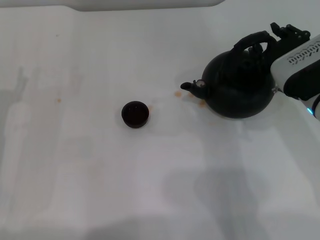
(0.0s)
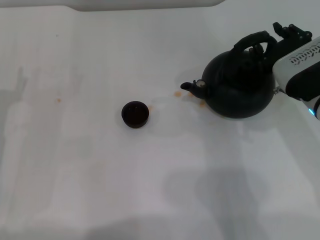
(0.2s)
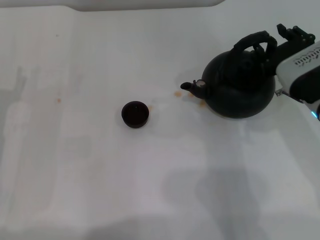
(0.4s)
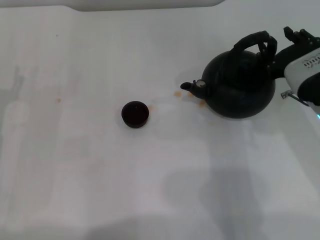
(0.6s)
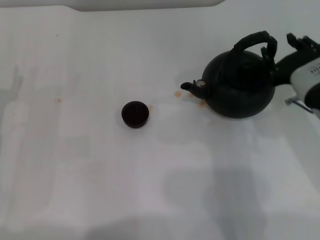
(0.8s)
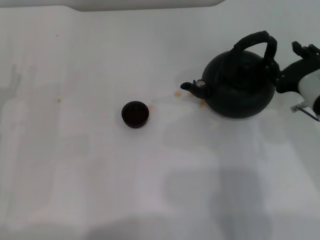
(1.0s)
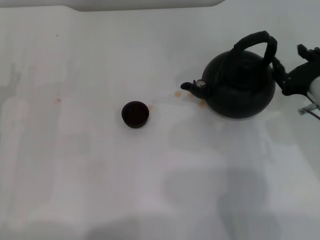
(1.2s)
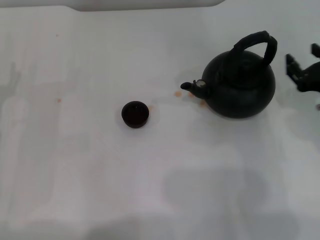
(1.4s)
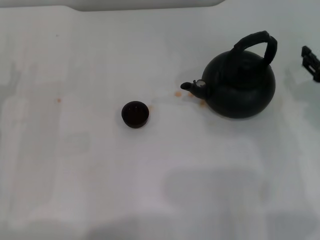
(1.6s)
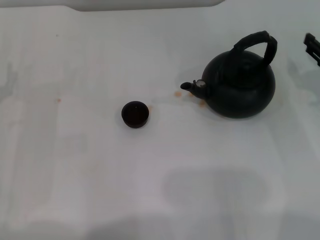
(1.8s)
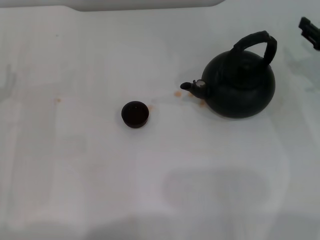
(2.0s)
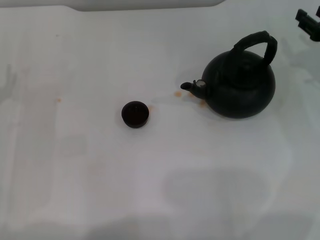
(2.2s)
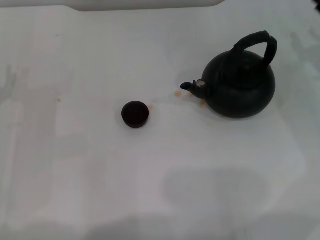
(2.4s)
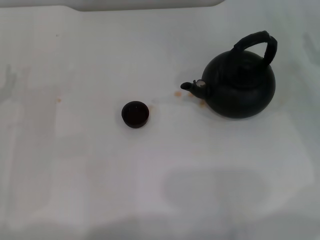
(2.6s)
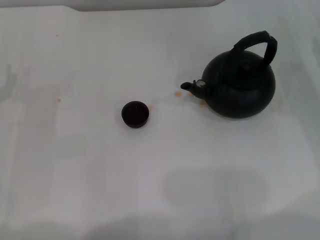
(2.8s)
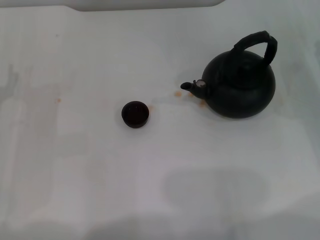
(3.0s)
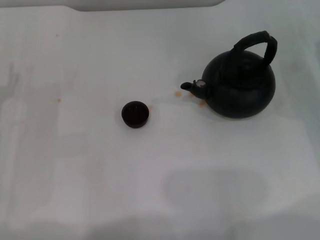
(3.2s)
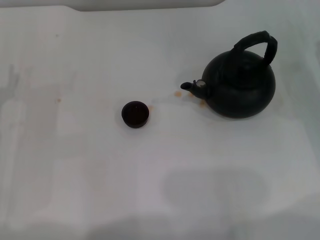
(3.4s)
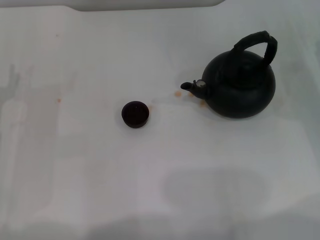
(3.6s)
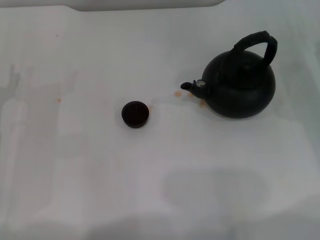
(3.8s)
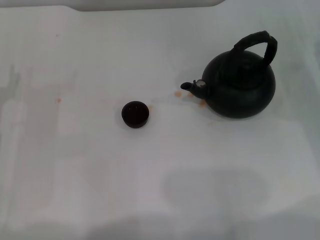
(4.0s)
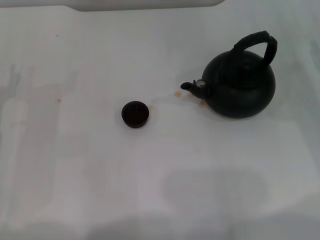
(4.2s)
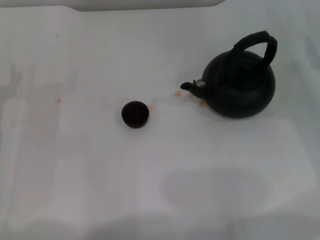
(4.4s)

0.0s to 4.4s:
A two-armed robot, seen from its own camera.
Task of the whole recording: Grasp the handle of the teapot with one hand and pour tea into the teacup.
0.0s to 1.4s: The right gripper shifts about 5 cm to the right.
1.4s to 3.0s: The right gripper heads to the right and forward, covering approximately 10 cm.

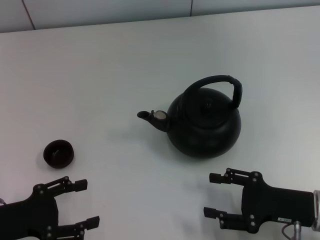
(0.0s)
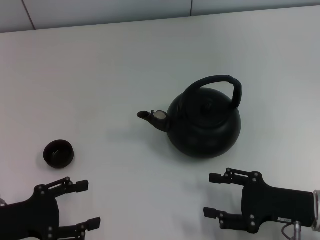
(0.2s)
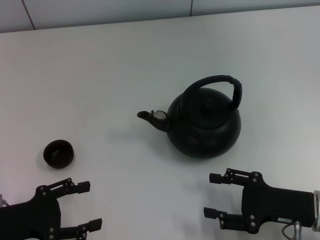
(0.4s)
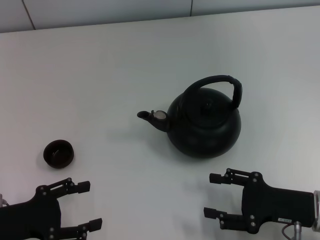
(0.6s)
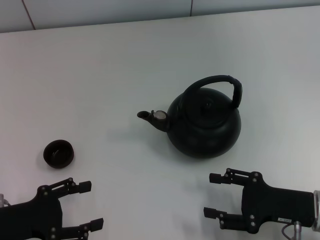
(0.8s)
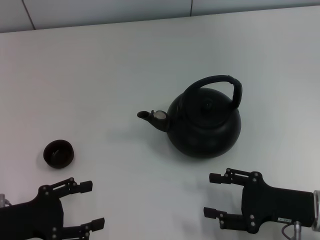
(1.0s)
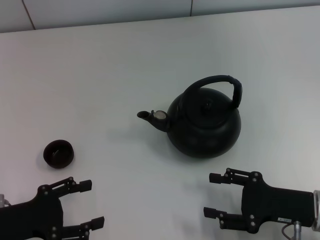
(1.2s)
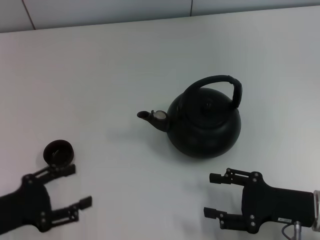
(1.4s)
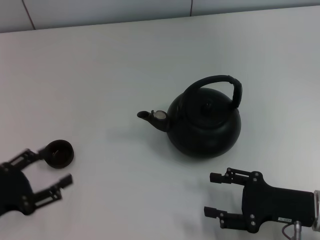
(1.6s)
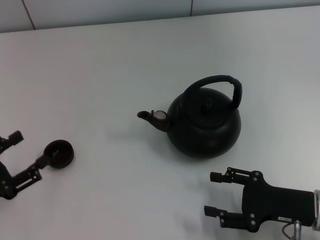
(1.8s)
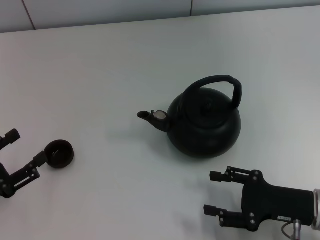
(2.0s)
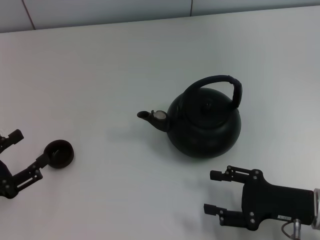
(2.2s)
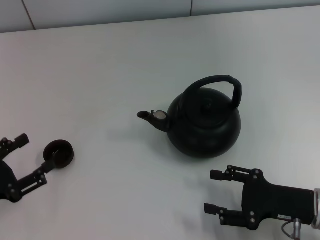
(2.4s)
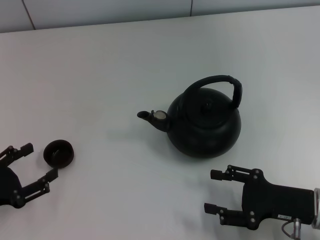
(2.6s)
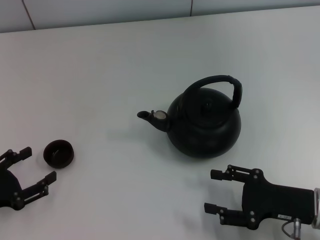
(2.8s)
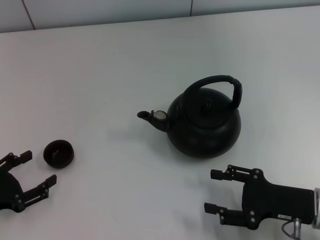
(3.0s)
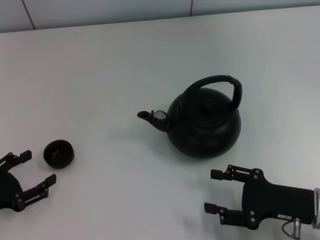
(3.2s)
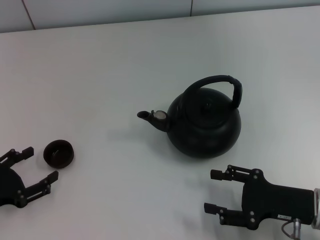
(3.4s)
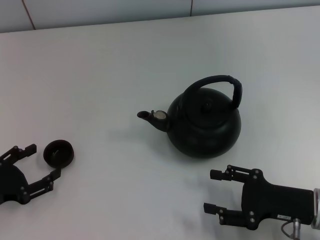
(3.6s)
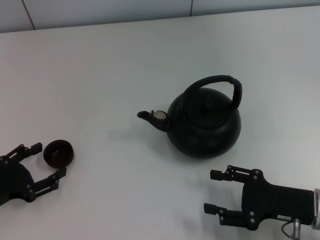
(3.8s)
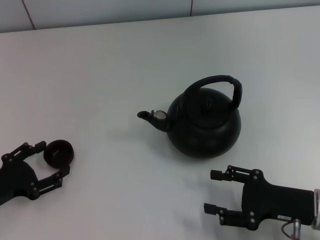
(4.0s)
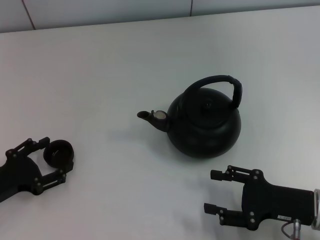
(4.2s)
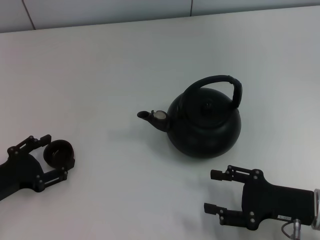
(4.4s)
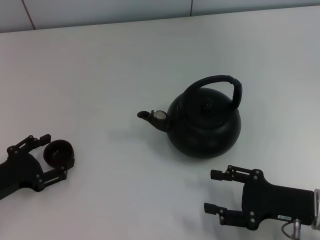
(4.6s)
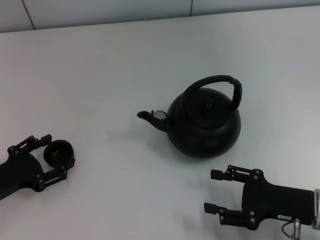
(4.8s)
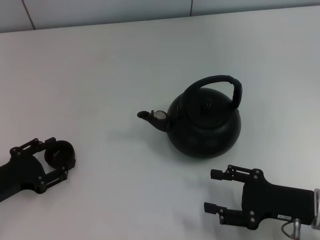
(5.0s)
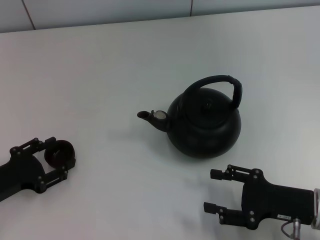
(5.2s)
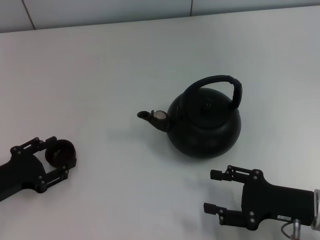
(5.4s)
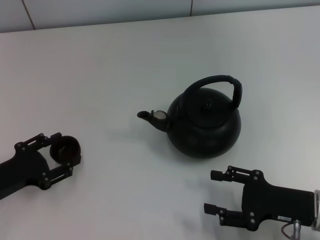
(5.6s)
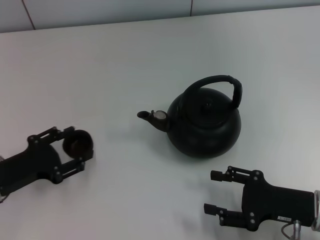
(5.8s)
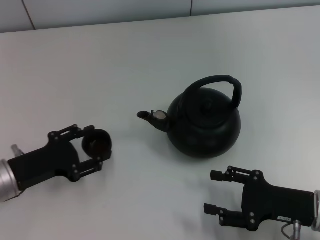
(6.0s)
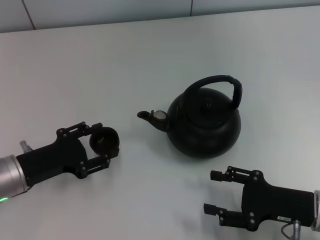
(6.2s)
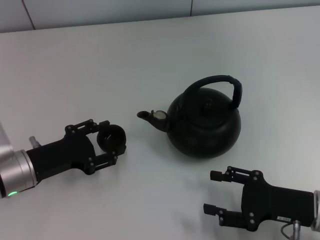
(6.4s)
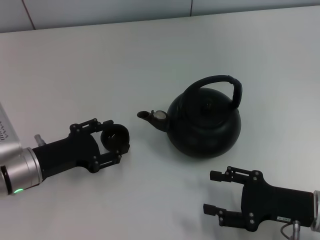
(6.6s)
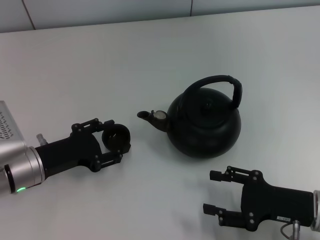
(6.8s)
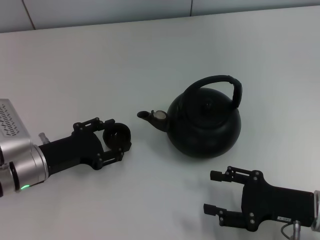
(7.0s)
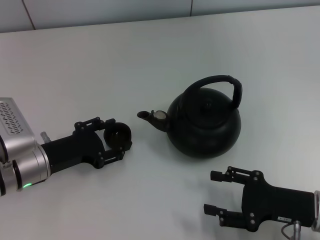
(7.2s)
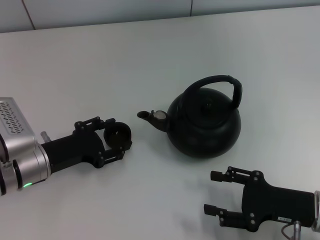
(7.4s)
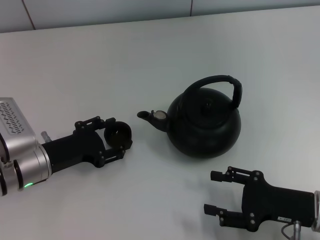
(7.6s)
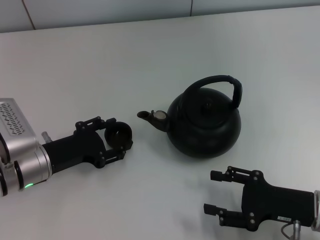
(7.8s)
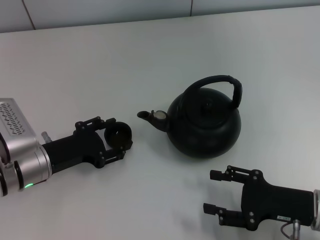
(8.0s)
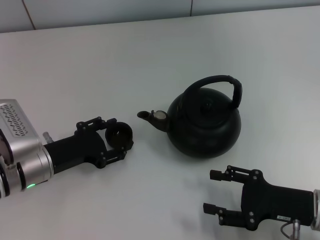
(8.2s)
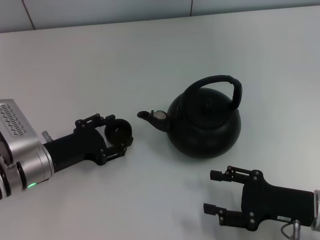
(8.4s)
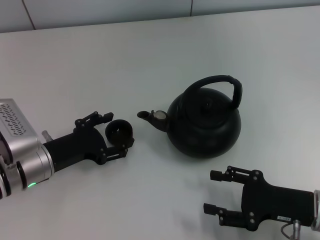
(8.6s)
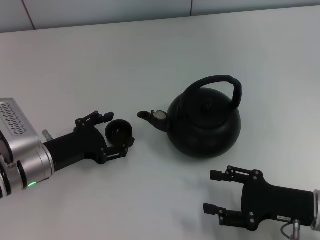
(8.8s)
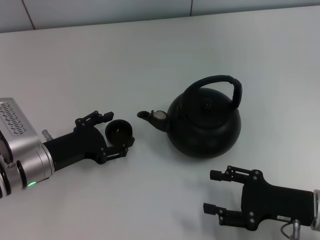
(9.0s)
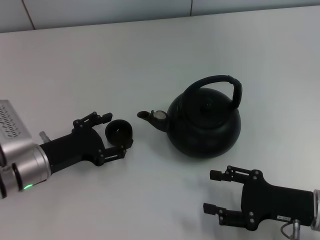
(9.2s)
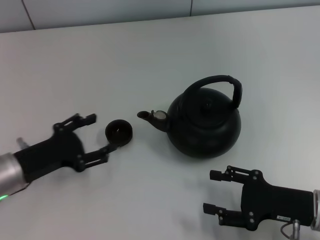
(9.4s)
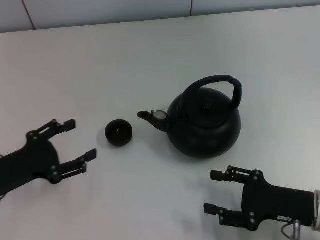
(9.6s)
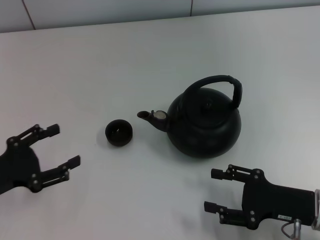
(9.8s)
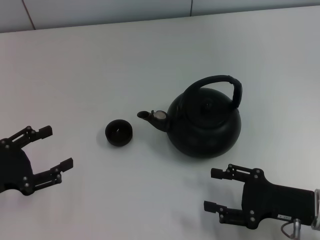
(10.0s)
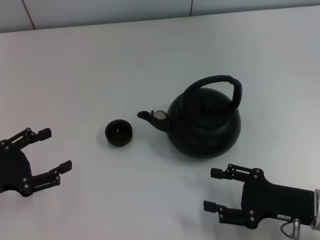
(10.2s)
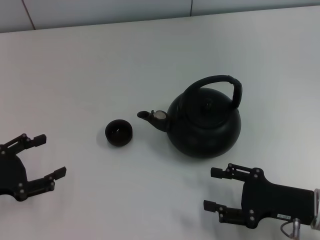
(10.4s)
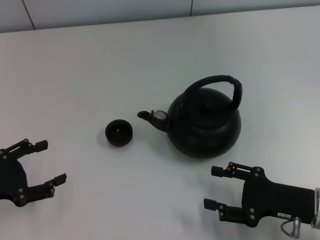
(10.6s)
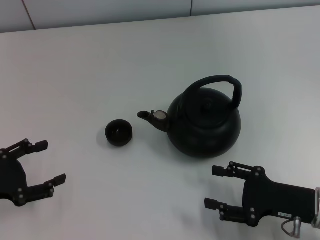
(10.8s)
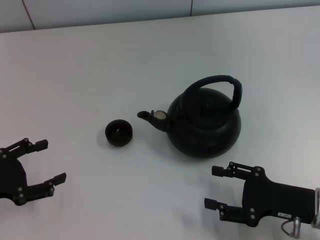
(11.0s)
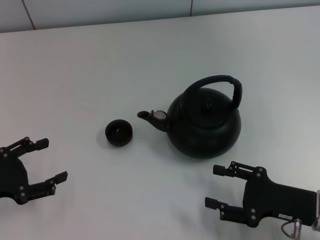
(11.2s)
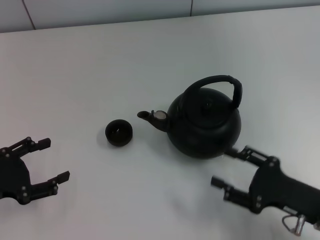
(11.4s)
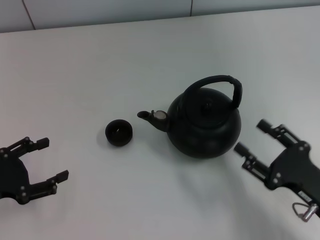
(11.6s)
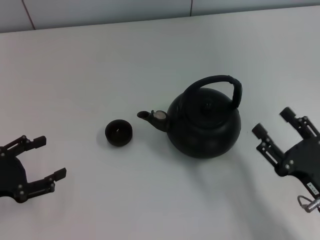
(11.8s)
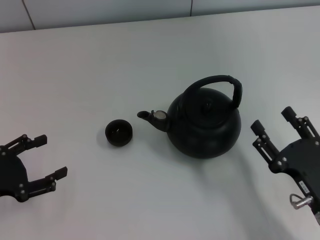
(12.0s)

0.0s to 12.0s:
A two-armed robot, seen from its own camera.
Task of the whole recording: Grasp the handle of the teapot with one hand and pour tea into the teacup.
Step, 0.0s to 5.6s: Pick up the teacup with the left gripper.
Step, 5.8s to 9.6s: Place the teacup in the center of view with the left gripper.
1.6s to 4.4s: There are only small adjustments of the grippers.
4.4s to 6.0s: The left gripper ends up some 5 cm from where it was, and closes up.
6.0s to 7.6s: The left gripper moves roughly 5 cm.
7.6s to 9.0s: The left gripper opens.
9.0s to 10.4s: The left gripper goes some 15 cm to the left and backward.

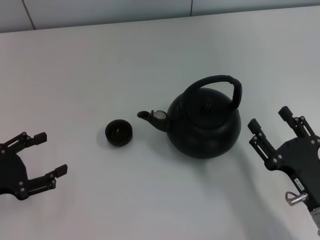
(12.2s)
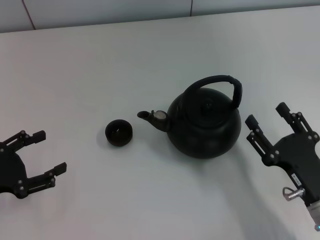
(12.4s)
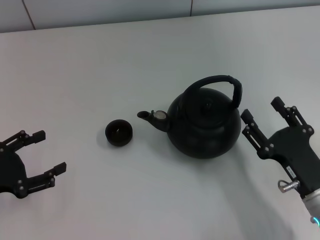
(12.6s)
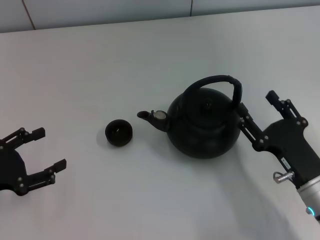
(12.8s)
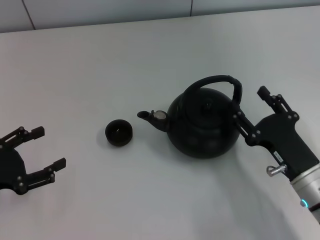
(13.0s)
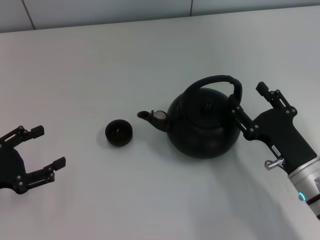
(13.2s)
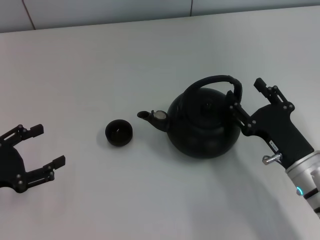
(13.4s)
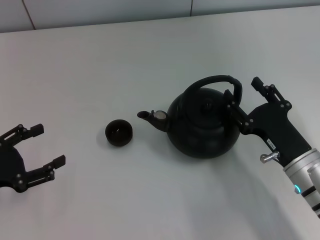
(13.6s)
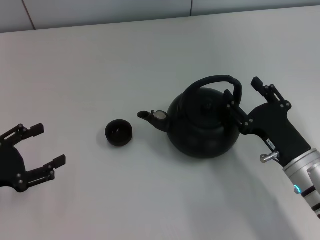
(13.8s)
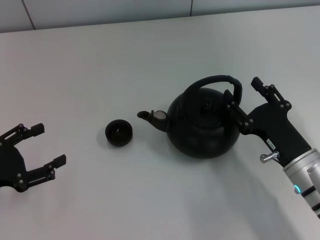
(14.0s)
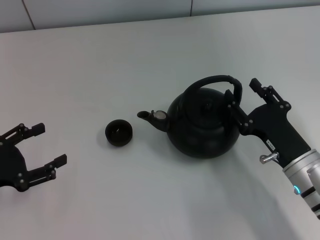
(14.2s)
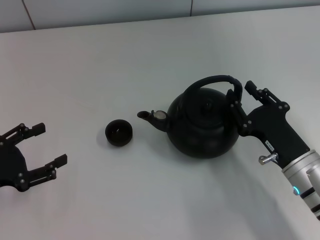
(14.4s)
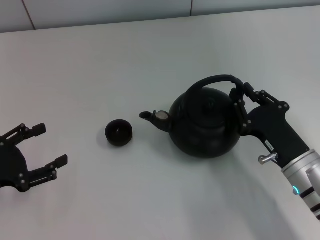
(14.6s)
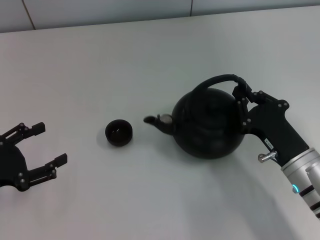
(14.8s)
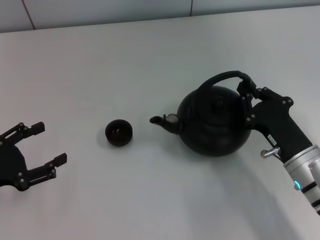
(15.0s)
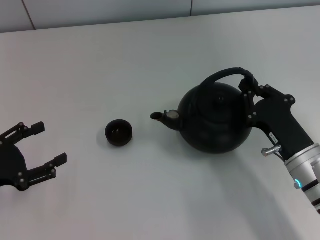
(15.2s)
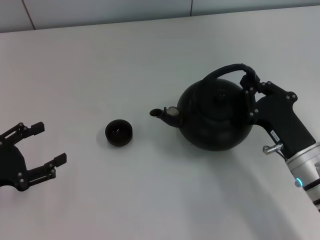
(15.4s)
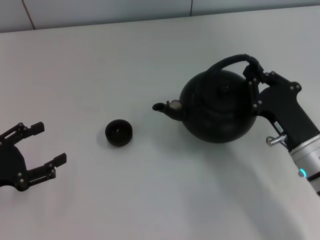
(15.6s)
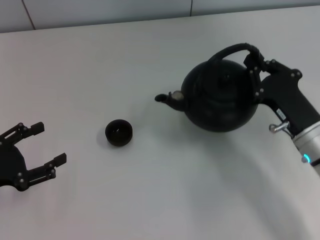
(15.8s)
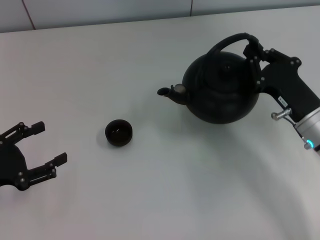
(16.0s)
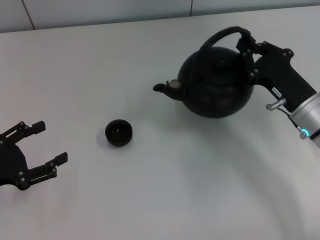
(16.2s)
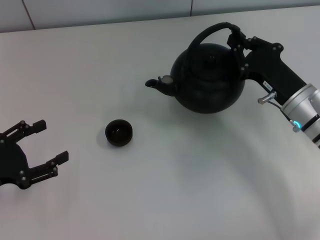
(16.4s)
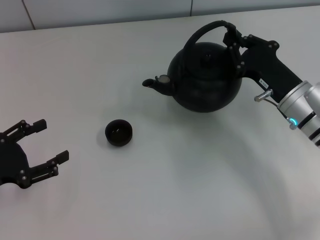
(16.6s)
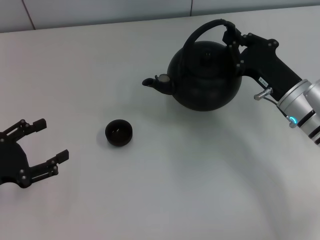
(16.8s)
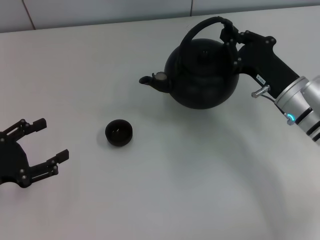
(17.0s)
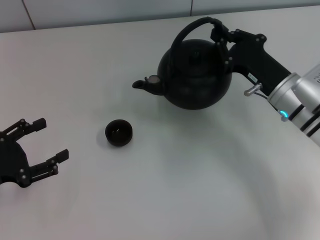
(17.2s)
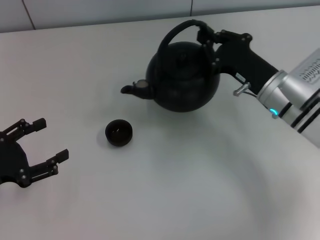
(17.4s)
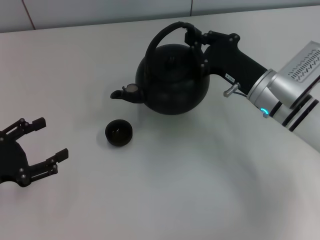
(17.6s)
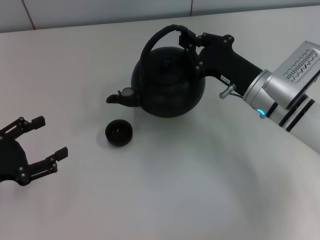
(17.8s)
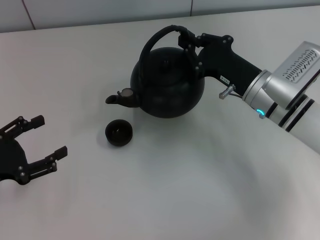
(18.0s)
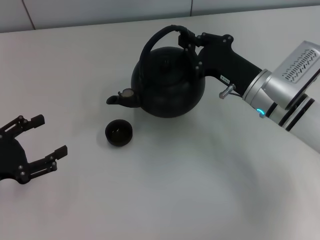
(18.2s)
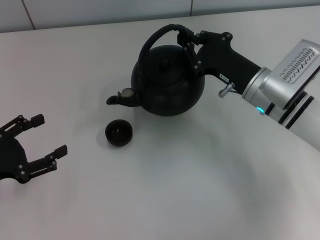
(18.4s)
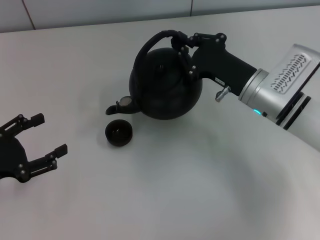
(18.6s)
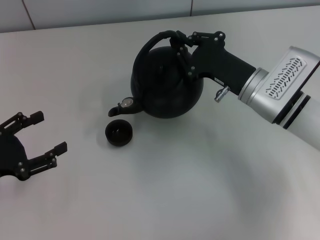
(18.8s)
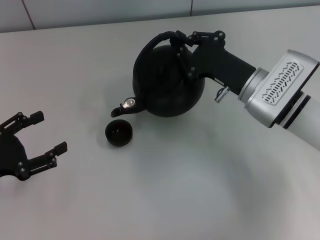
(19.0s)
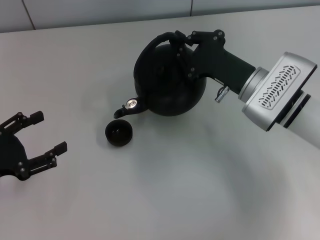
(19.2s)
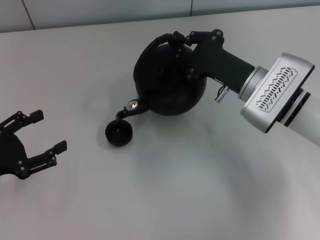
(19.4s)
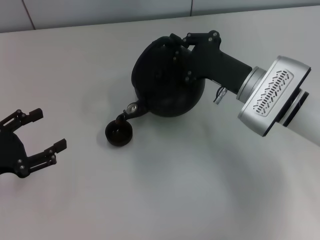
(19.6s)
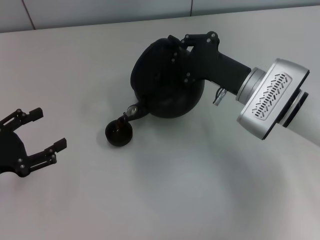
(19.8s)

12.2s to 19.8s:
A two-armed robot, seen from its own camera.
Task of the whole recording: Grasp the handle of the teapot with one hand and pour tea into the teacup.
Step, 12.2s to 15.6s: Pick up the teapot with the right gripper.
12.2s to 13.8s: The right gripper is displaced forward by roughly 5 cm.
13.8s to 15.2s: The right gripper closes.
15.2s to 16.8s: The right gripper shifts roughly 10 cm forward.
16.8s to 18.2s: The right gripper changes place by some 5 cm.
